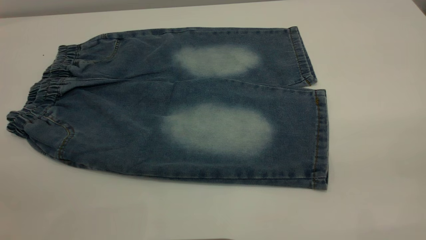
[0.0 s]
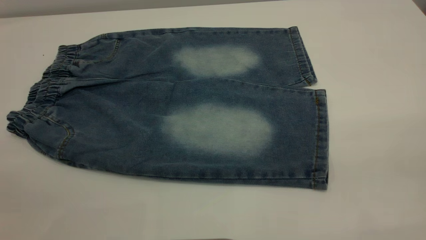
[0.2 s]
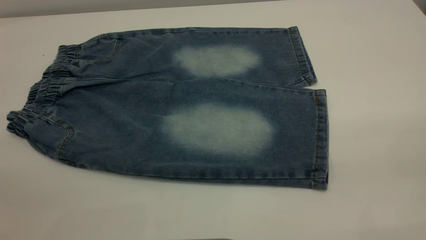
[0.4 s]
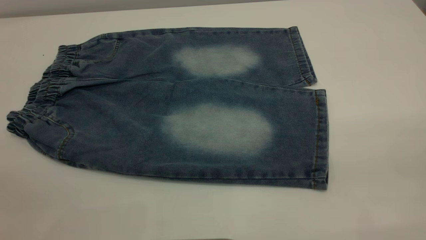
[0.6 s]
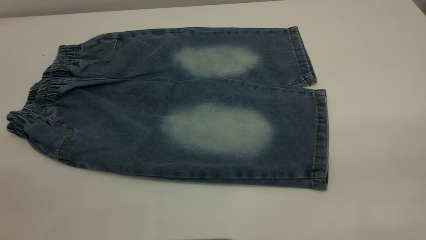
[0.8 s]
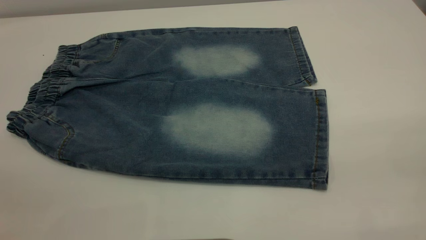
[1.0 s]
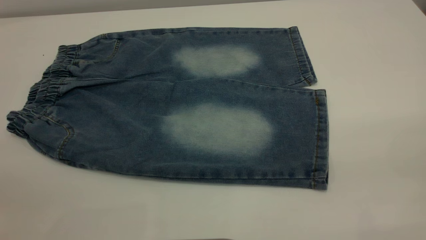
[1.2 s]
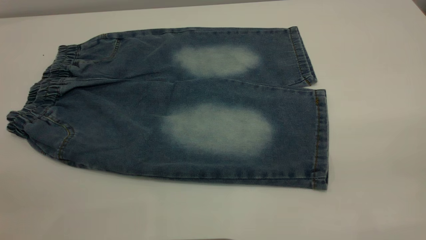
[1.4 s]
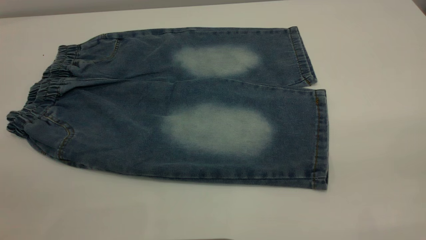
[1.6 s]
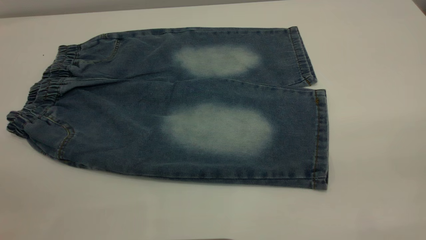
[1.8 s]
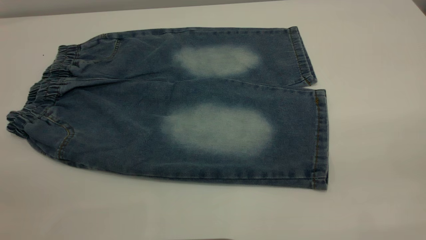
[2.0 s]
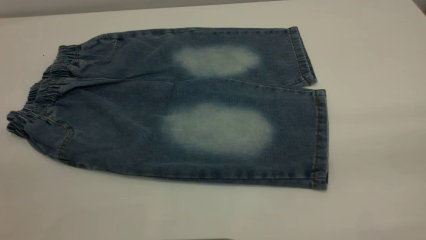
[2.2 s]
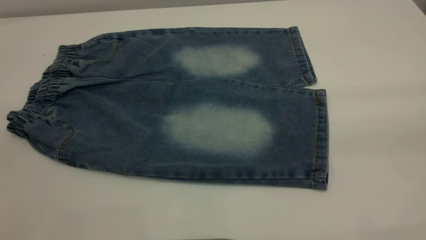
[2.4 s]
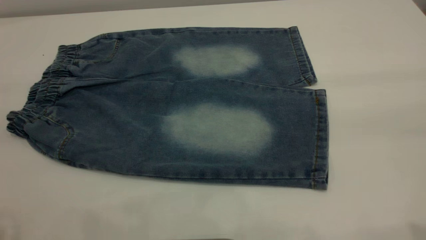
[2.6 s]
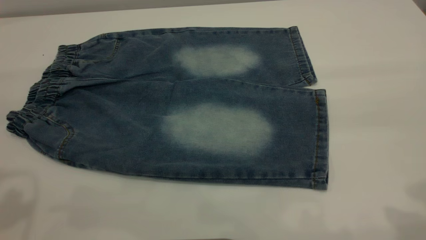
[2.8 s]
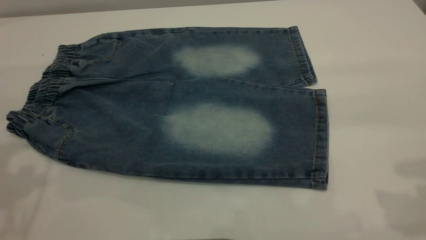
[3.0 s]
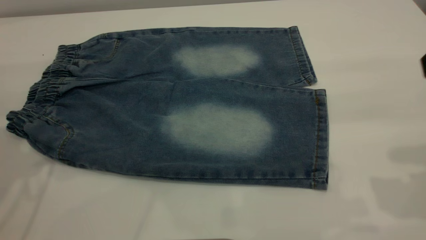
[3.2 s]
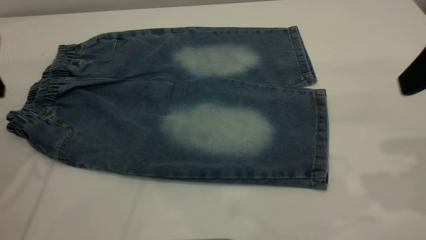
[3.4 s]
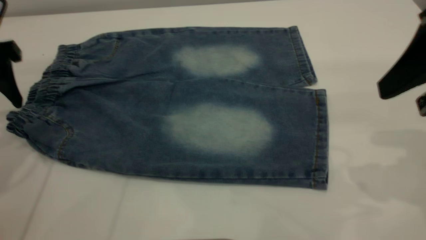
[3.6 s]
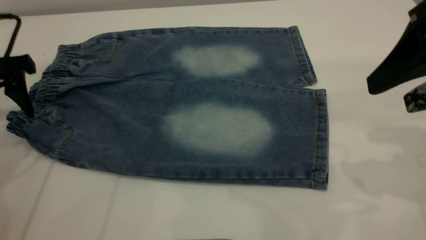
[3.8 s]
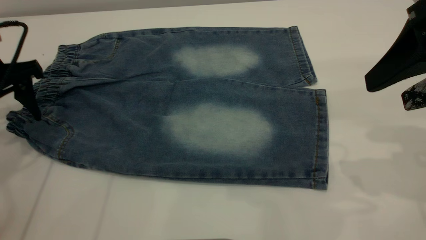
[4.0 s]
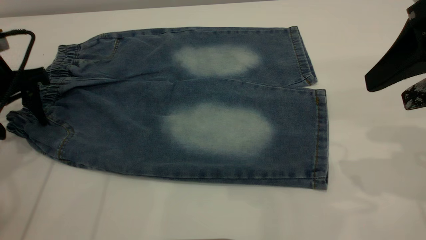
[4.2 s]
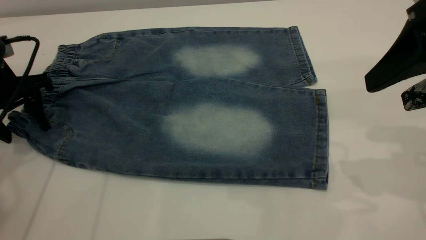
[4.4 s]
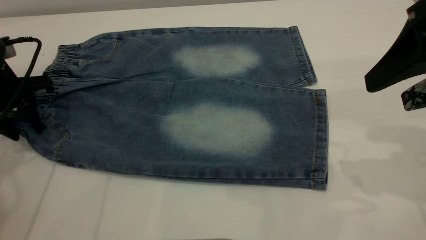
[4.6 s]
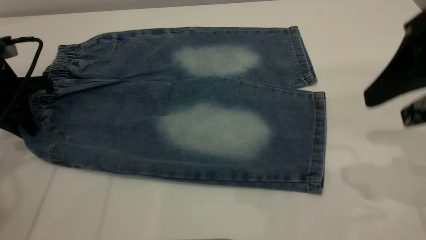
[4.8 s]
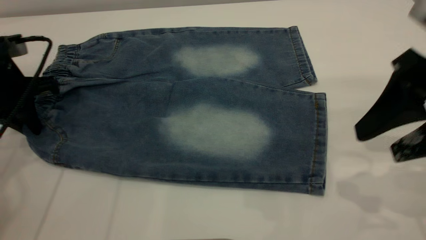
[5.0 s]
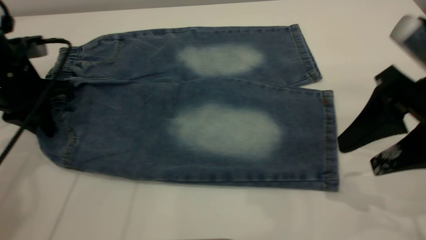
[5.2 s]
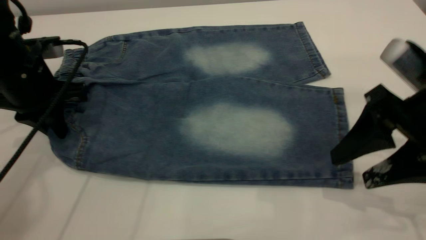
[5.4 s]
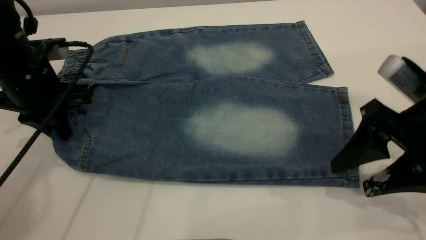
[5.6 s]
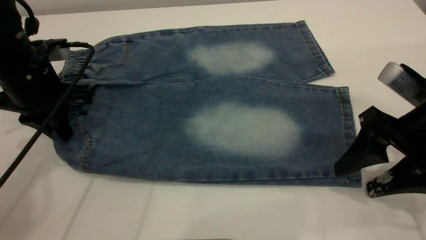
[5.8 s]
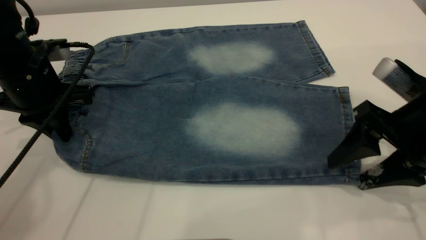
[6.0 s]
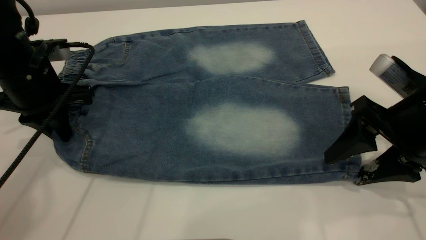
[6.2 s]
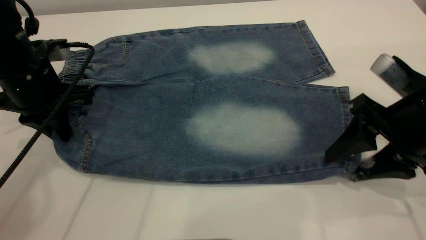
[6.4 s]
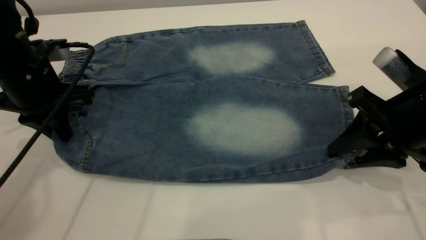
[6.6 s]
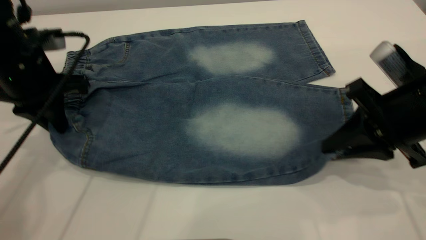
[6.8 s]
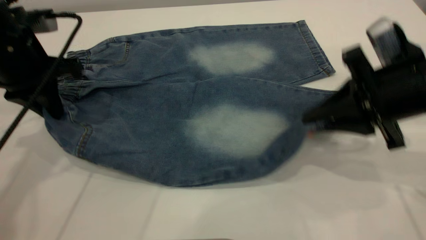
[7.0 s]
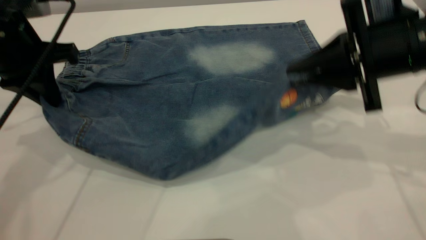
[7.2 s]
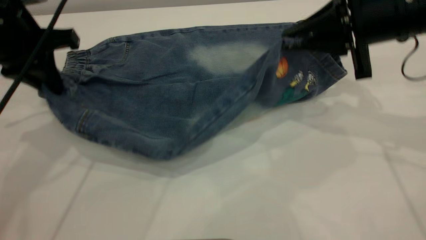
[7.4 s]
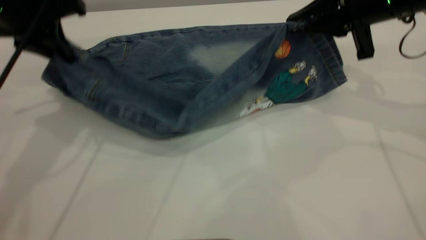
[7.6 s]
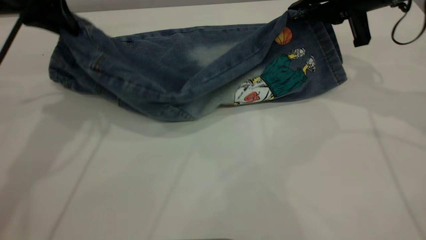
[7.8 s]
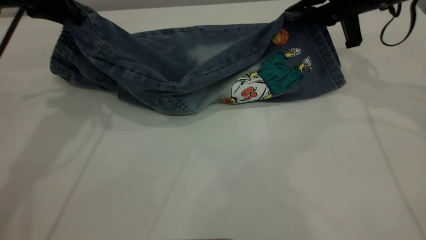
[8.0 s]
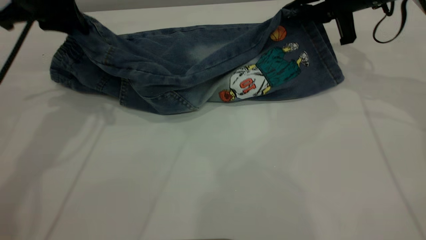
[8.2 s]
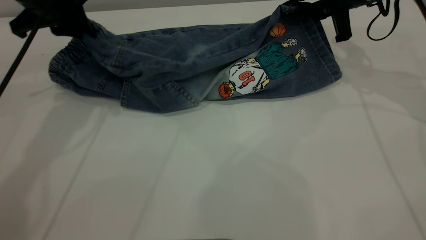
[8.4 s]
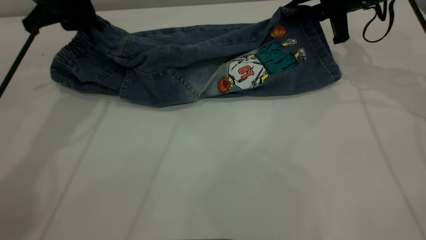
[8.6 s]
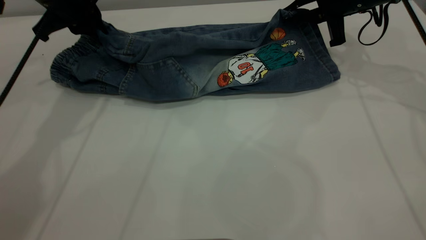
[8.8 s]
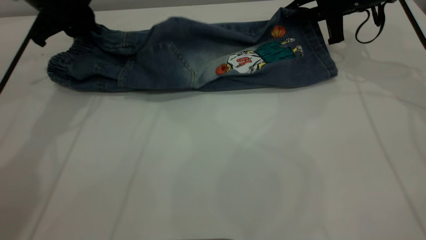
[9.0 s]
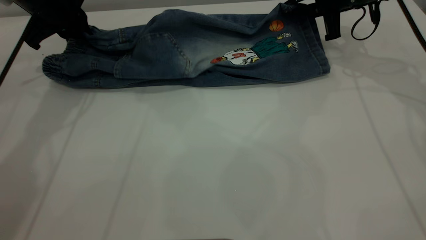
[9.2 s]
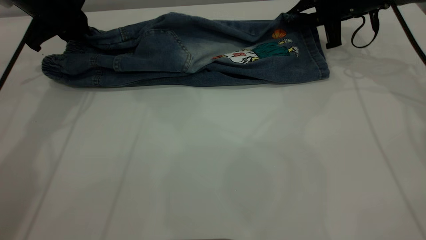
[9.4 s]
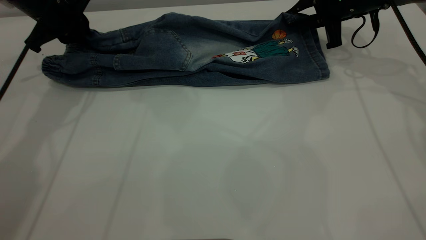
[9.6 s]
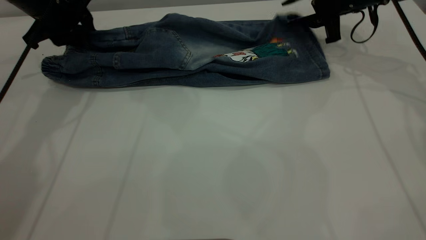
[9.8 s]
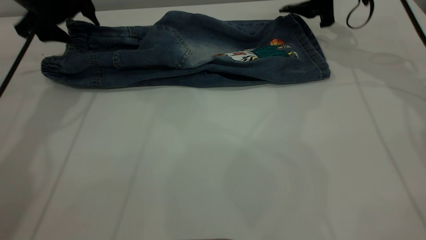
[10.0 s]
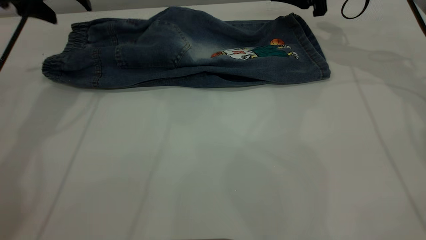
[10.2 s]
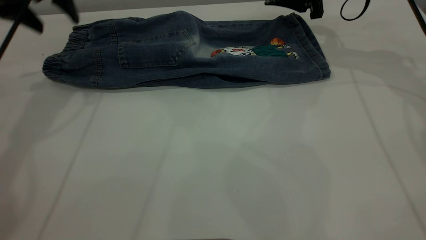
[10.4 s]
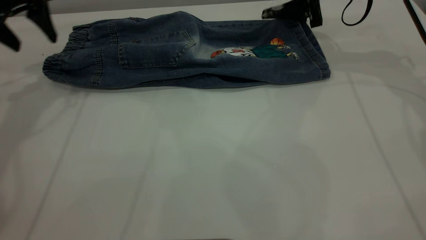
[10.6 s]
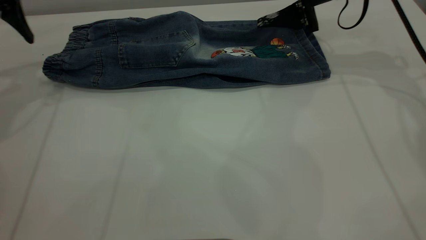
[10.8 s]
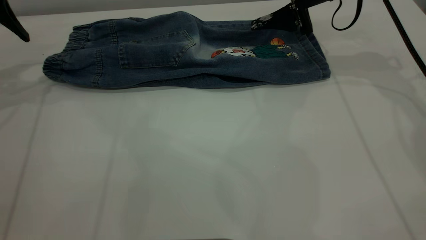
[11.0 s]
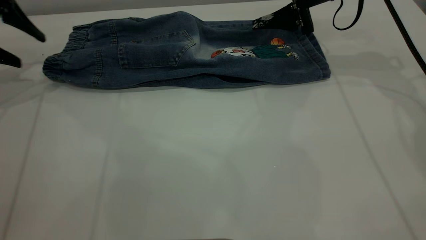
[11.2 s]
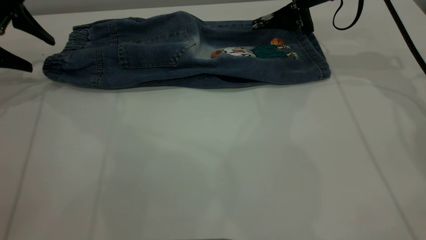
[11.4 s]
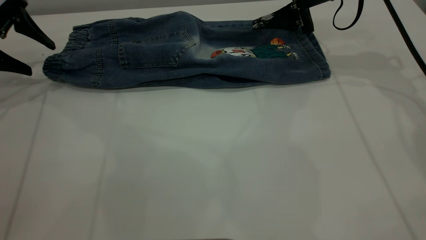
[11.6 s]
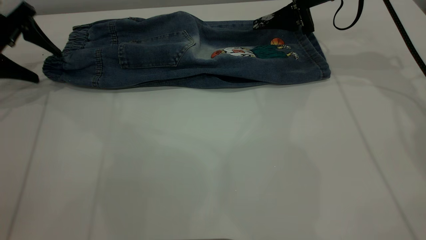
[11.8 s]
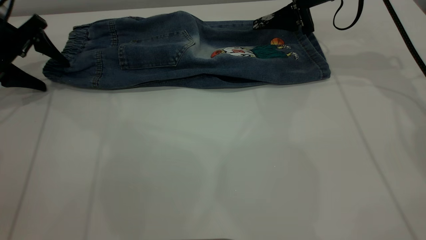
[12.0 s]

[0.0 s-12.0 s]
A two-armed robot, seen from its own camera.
Step, 0.0 to 10.4 s: Fold the bottom of the pants upward.
0.0 to 1.6 s: Both grippers stay put.
3.0 to 4.4 s: The left gripper travels downward and forward by roughly 20 cm. Meanwhile the right gripper is displaced downward and forward by some 10 cm.
4.4 to 6.0 s: The right gripper goes approximately 15 cm downward, while the left gripper heads to the right, covering some 5 cm, and closes its fingers.
6.0 to 7.6 s: The right gripper goes about 15 cm forward and upward, and closes up; the left gripper shifts about 10 cm upward.
7.6 to 9.0 s: The left gripper shifts some 10 cm forward and downward. The right gripper is displaced forward by roughly 10 cm.
9.0 to 10.4 s: The right gripper opens its fingers, while the left gripper is displaced upward by roughly 5 cm, and opens.
10.4 to 12.0 s: The left gripper is displaced downward and to the left by about 15 cm.

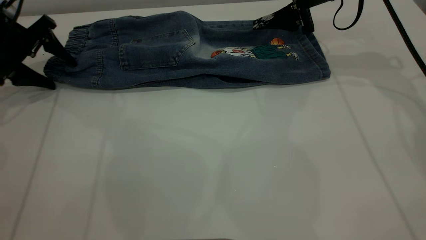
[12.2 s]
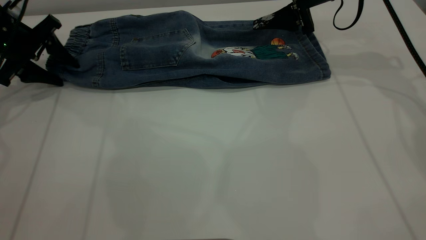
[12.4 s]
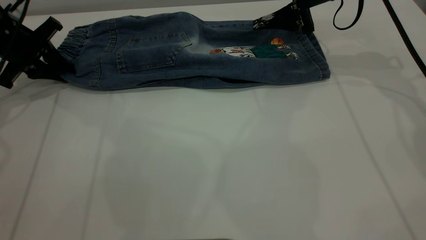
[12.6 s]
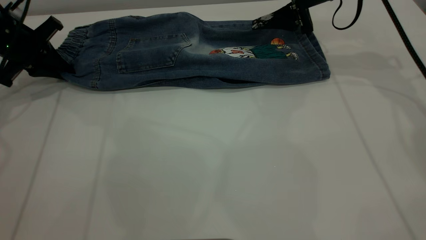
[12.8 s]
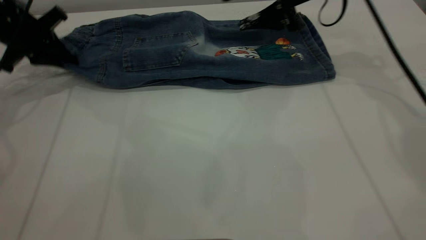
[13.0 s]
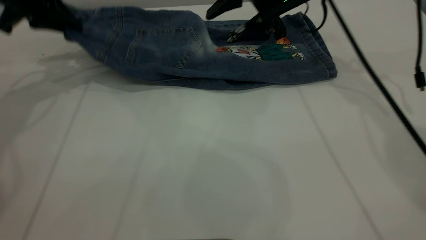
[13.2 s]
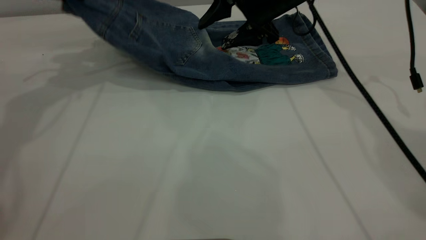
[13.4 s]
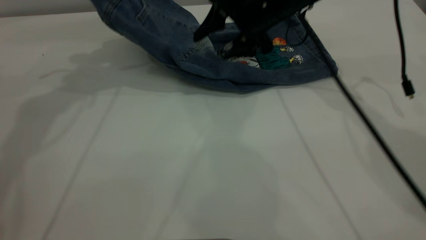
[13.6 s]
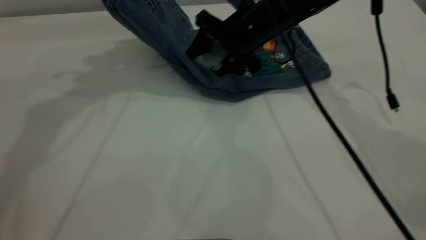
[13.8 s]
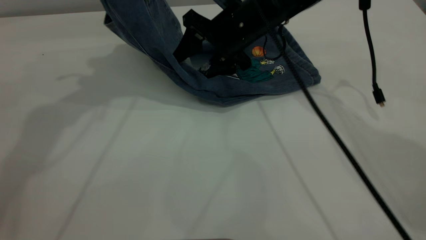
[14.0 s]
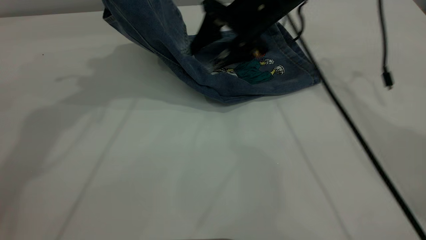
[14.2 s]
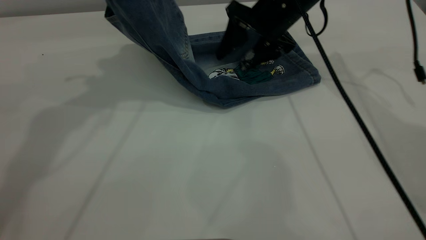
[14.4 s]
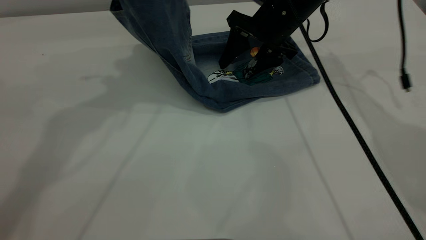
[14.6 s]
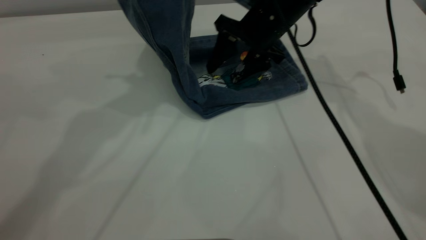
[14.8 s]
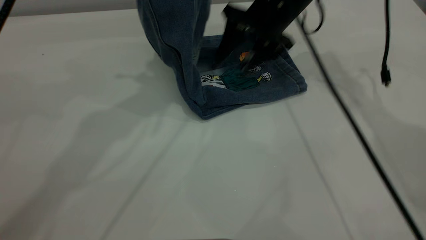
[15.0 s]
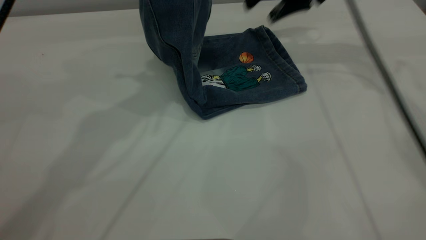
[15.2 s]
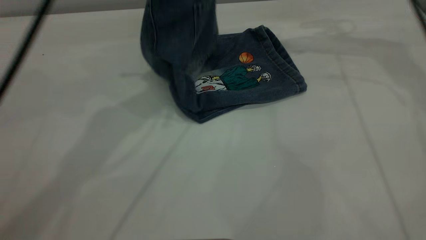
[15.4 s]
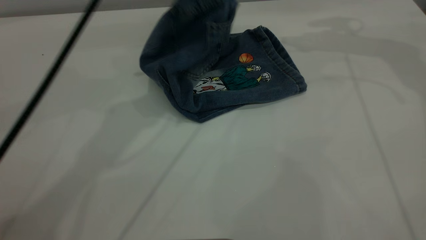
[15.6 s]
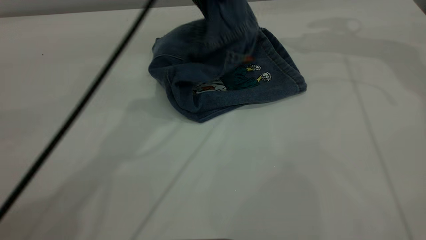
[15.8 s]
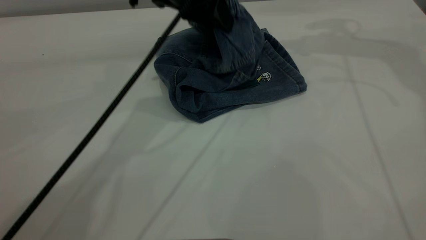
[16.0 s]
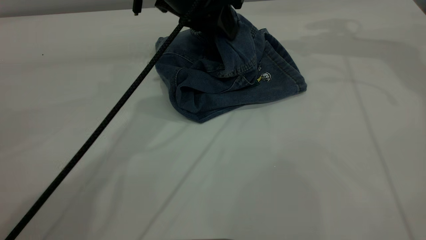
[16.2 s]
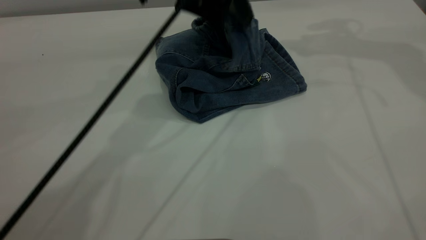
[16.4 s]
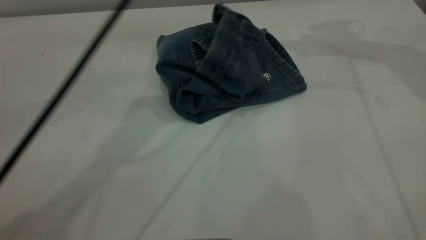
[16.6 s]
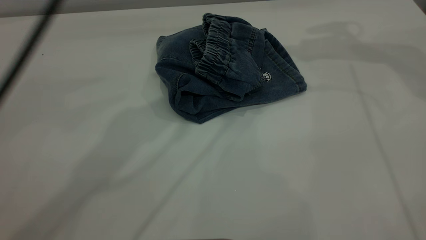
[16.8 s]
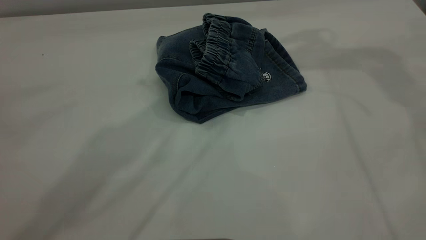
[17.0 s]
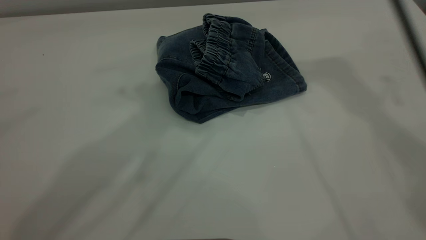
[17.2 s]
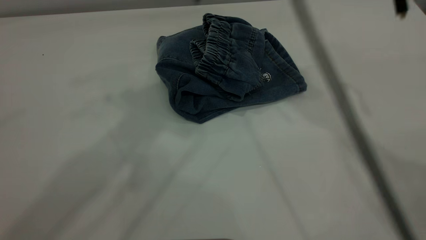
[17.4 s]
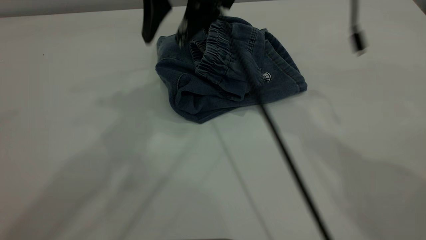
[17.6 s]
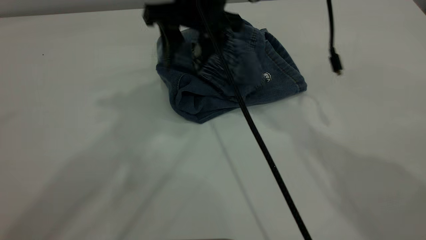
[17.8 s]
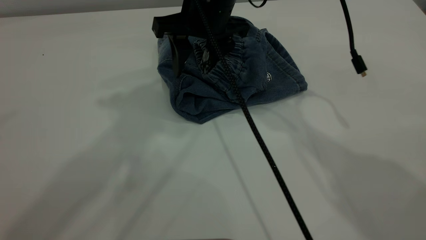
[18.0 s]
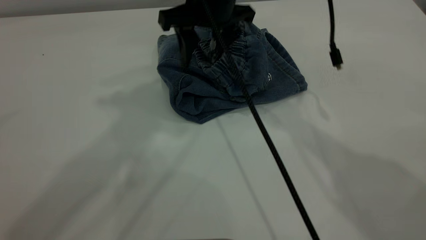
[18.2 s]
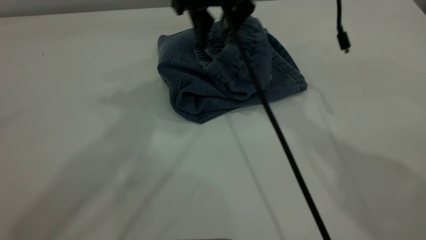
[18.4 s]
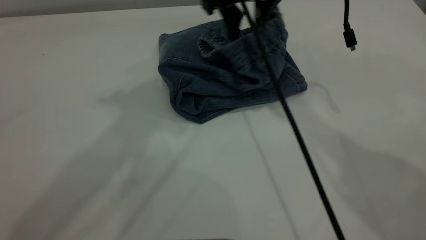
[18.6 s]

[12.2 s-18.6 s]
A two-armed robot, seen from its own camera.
12.2 to 13.8 s: The right gripper goes approximately 10 cm to the left; the left gripper travels upward and to the right by some 25 cm, and closes its fingers.
13.8 to 15.4 s: The left gripper heads to the right, covering roughly 10 cm; the right gripper is displaced to the right and upward by some 20 cm.
15.4 to 17.0 s: The left gripper is displaced upward and backward by some 15 cm, and opens up. The right gripper shifts roughly 10 cm upward and to the left.
17.0 to 18.6 s: The right gripper is displaced downward and to the left by approximately 15 cm.
